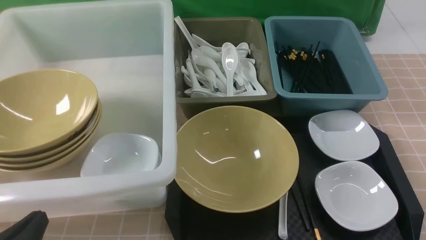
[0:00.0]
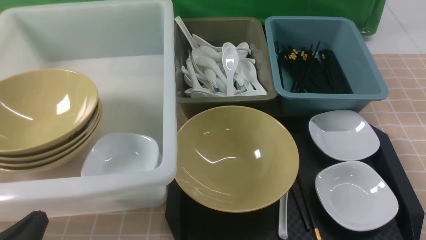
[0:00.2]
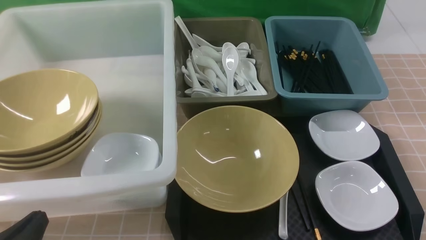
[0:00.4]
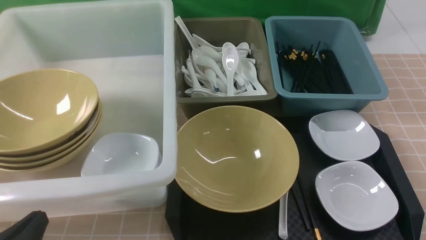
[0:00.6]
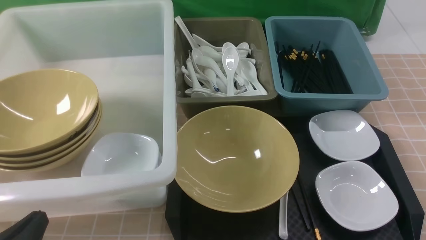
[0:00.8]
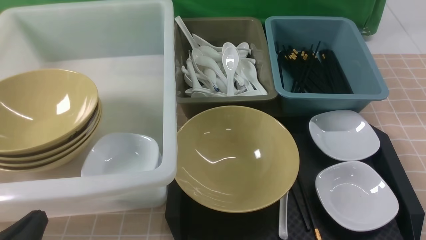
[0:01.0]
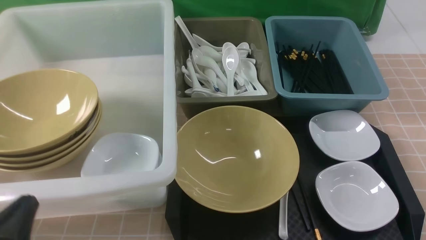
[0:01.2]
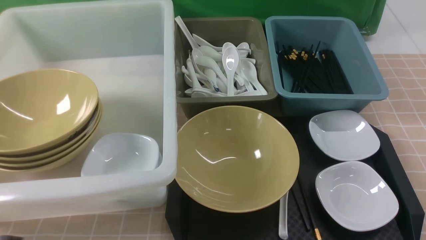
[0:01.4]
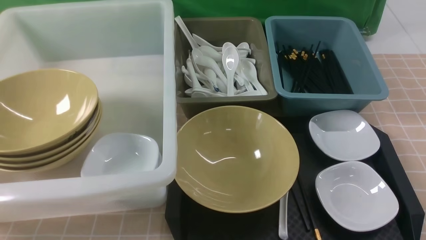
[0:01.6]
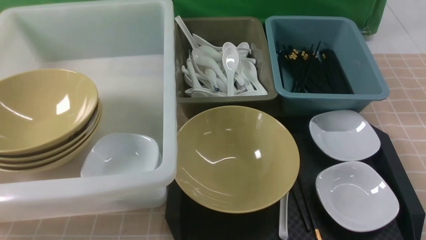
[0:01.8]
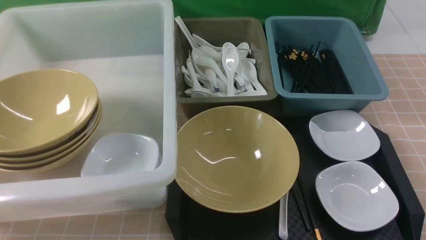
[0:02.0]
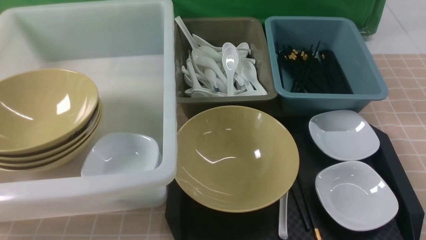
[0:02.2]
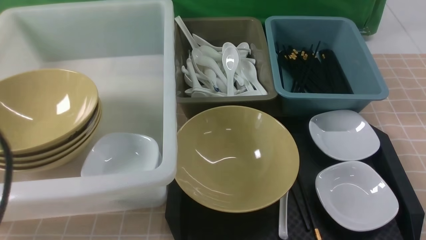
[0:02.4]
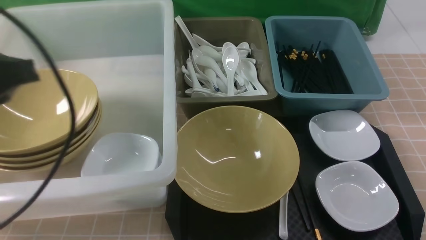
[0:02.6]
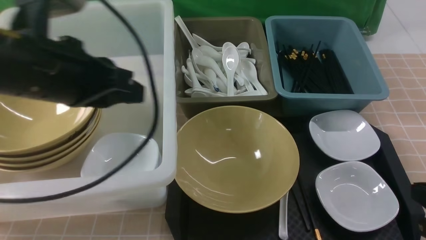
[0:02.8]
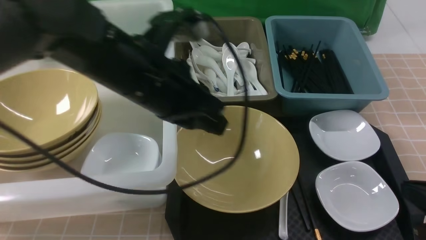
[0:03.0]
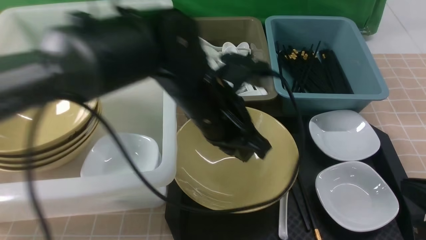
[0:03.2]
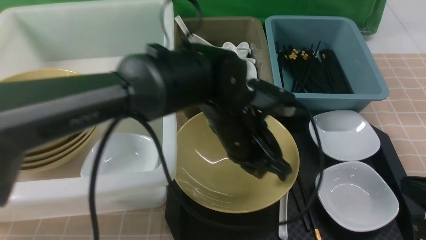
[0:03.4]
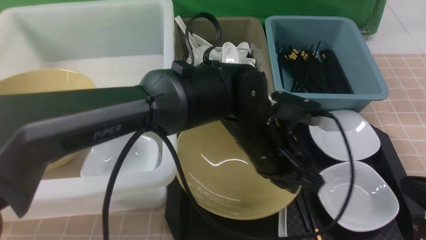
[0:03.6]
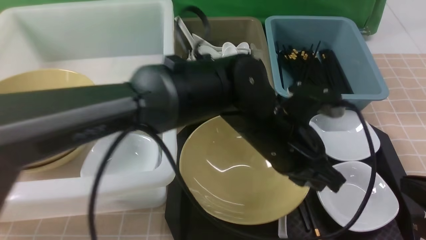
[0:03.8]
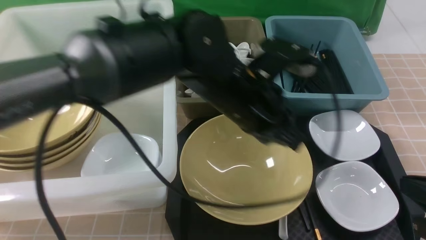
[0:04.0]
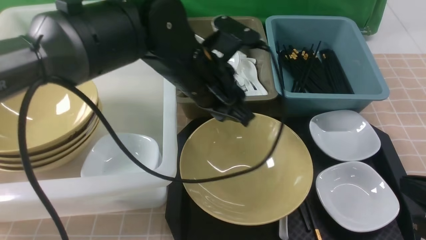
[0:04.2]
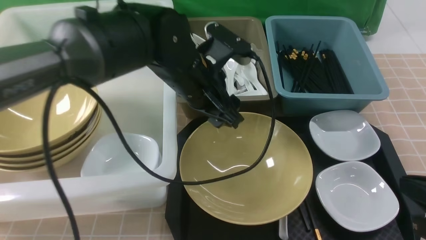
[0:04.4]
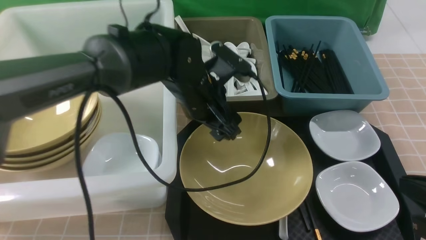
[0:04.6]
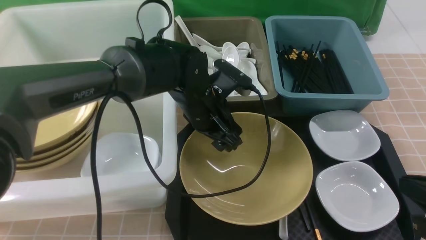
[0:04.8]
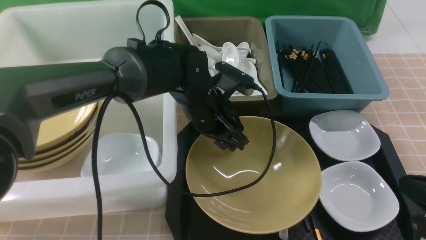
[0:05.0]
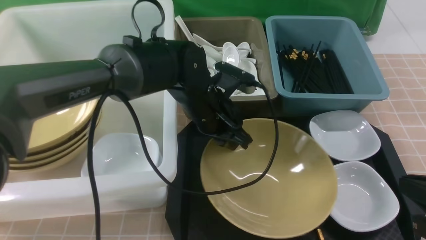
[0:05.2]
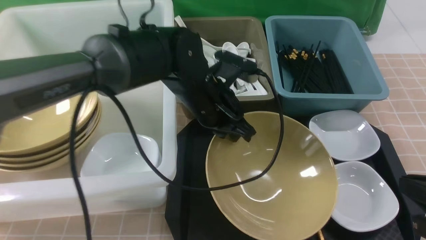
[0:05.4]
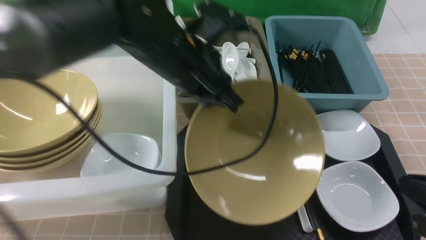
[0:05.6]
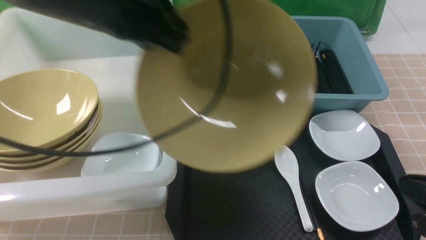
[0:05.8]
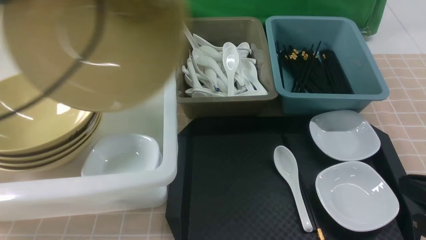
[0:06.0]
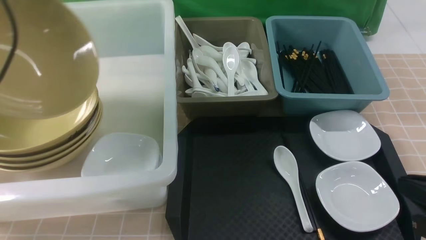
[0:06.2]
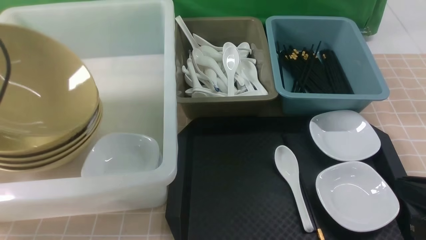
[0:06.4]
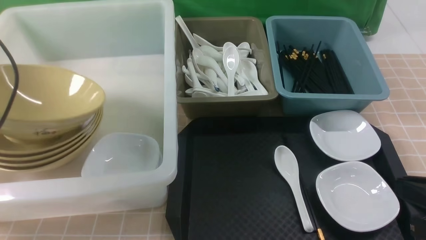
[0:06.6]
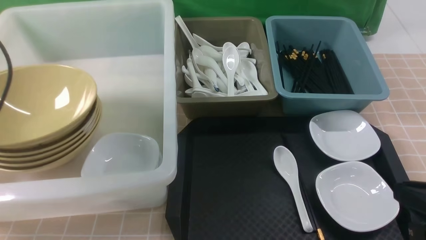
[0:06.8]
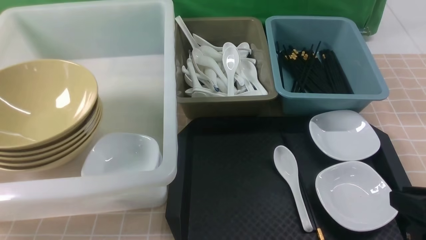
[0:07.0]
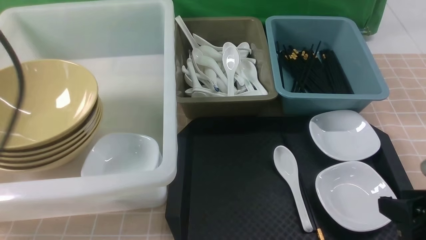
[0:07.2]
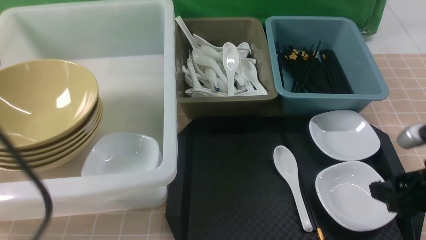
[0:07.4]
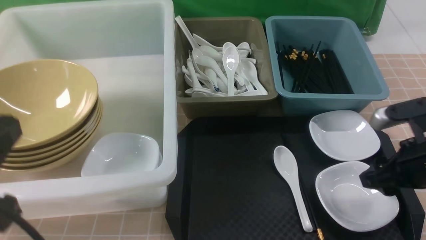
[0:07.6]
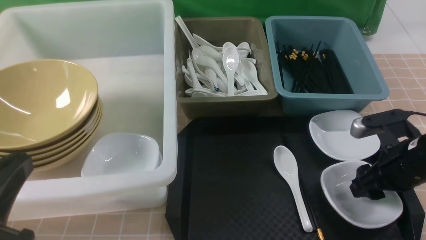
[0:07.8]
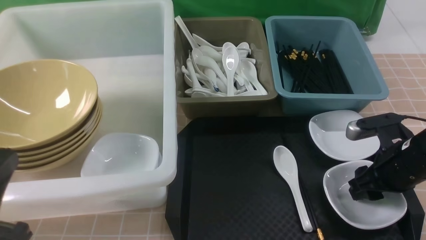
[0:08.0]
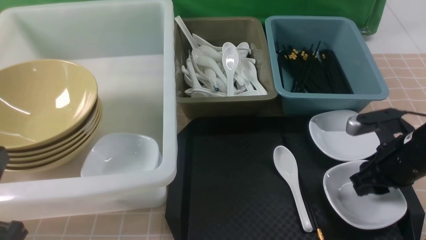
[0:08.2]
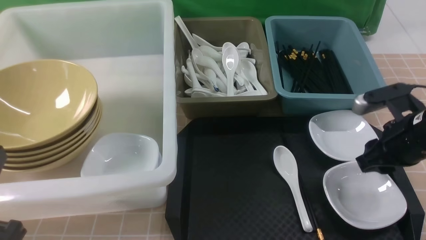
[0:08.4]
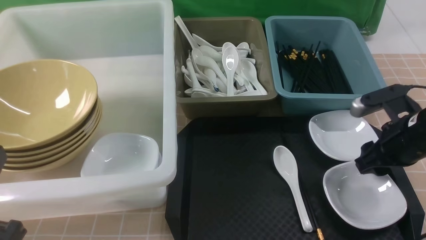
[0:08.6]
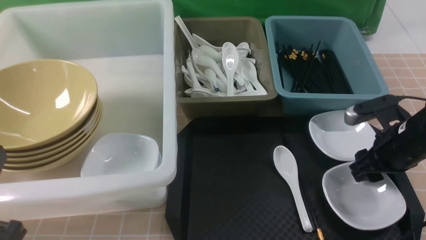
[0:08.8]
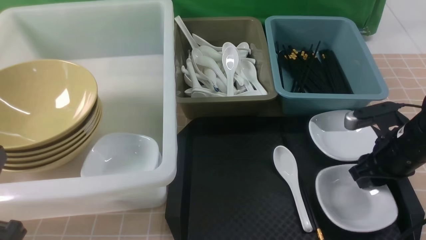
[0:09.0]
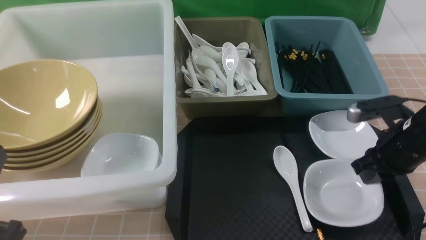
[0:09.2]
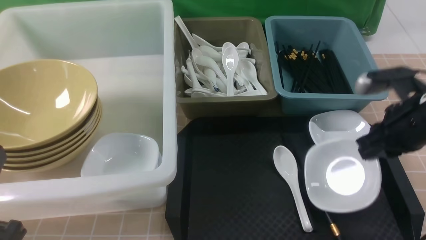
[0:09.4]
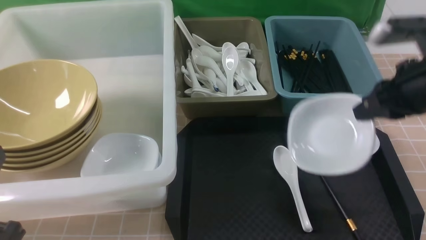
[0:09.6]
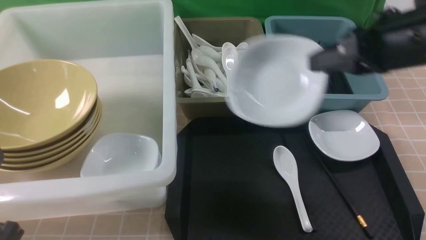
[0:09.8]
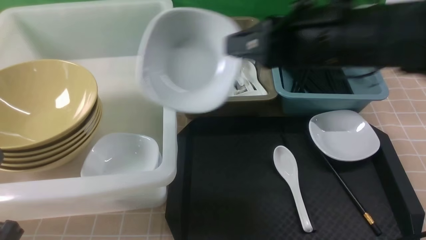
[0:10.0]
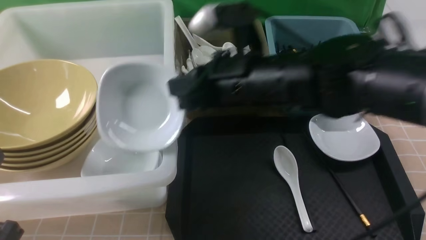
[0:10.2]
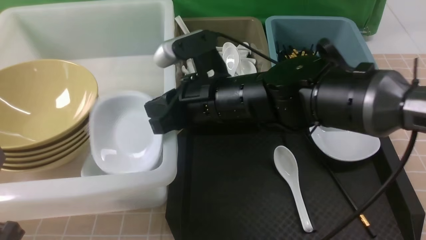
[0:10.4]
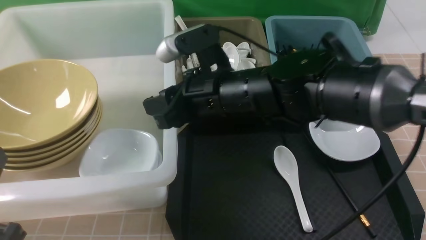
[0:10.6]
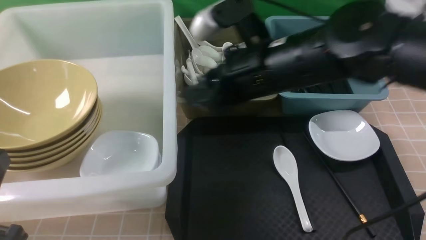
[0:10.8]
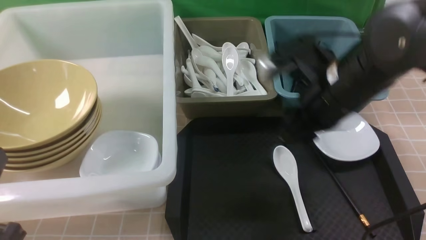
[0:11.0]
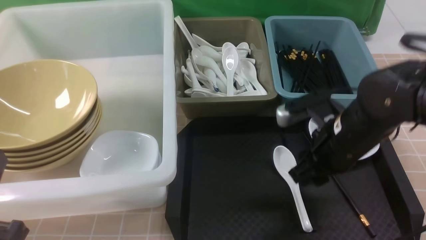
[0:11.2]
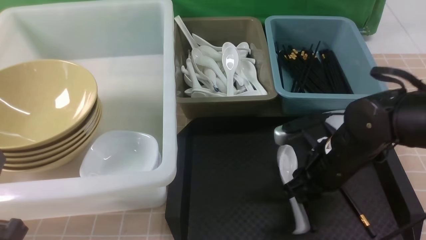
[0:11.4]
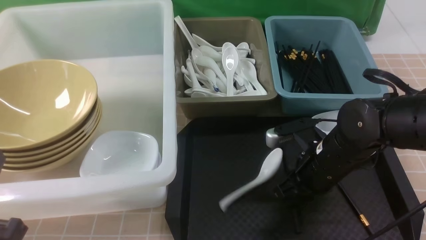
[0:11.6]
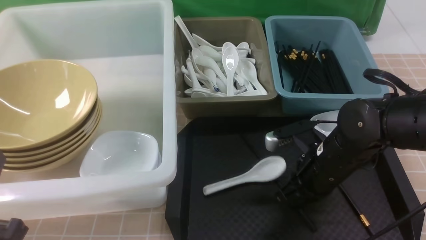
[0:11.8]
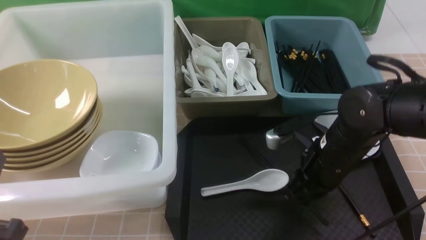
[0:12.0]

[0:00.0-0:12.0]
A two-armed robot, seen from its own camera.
Task of the whole recording: on brown table put chopsticks spoon bowls plates into blue grey white boxes.
Step, 0:00.0 to 0:05.2: use the left arm to grab the yellow noodle bowl on the left.
Step, 0:05.4 to 0:07.0: use the left arm to put the noodle bowl into the large storage box on the left.
Step, 0:07.2 to 0:09.6: use the right arm to grab the plate.
Step, 0:09.8 to 0:11.0: use the right arm to put the plate into the large storage box on the left.
0:00.0 to 0:01.6: The left gripper travels upward by roughly 10 cm.
0:01.6 to 0:03.0: The left gripper travels forward and to the right by about 30 cm, while the right gripper shifts some 10 cm forward, and moves approximately 10 cm upward and comes back.
0:03.0 to 0:04.4: The left gripper heads forward and downward, covering roughly 10 cm, and opens.
0:04.4 to 0:06.0: The left gripper shifts some 25 cm to the left and upward, and closes its fingers.
0:06.0 to 0:07.6: The right gripper is displaced forward by roughly 10 cm, and opens, while the left gripper is displaced backward and downward by approximately 20 cm, and opens, then closes again.
0:07.6 to 0:09.0: The left gripper is displaced downward by roughly 5 cm. The right gripper is displaced forward by some 5 cm, and closes up.
0:09.0 to 0:10.4: The right gripper is displaced to the left by about 25 cm.
0:10.4 to 0:12.0: The right gripper heads to the right and downward, covering about 15 cm, and opens and closes again.

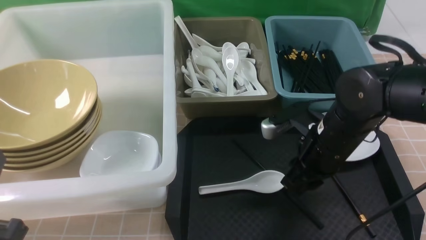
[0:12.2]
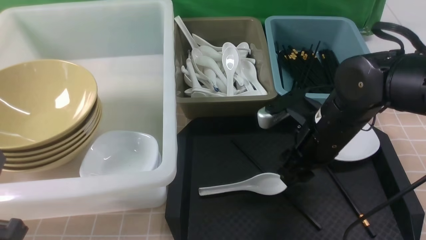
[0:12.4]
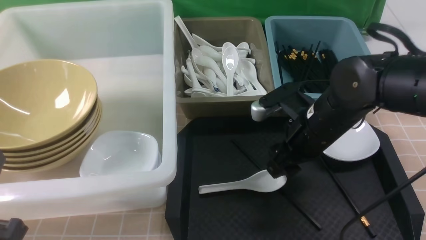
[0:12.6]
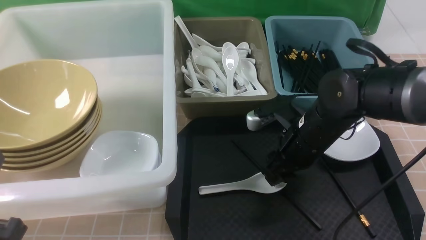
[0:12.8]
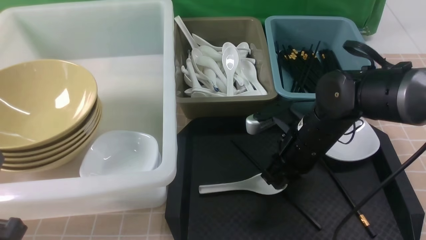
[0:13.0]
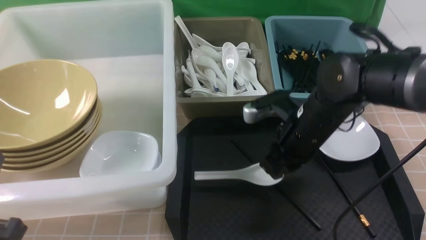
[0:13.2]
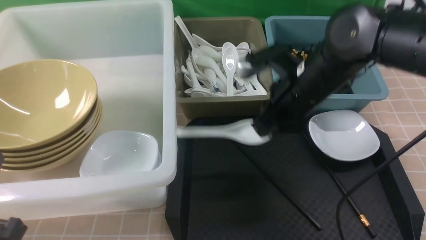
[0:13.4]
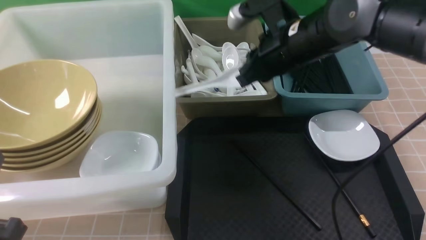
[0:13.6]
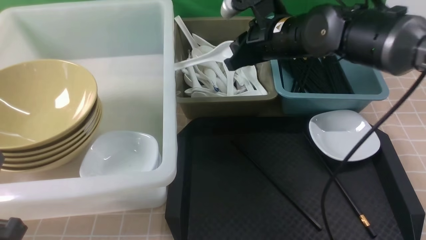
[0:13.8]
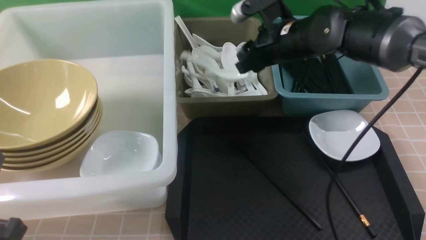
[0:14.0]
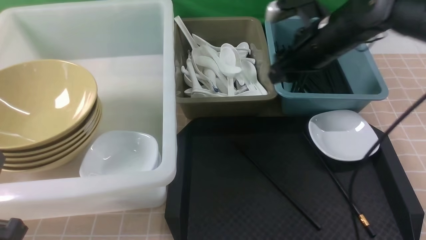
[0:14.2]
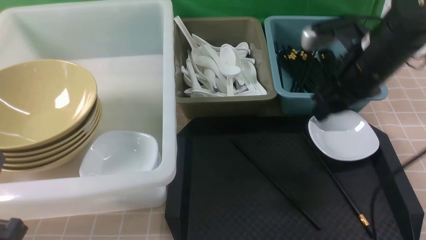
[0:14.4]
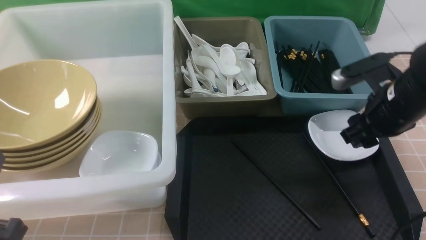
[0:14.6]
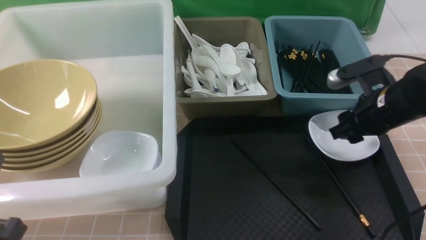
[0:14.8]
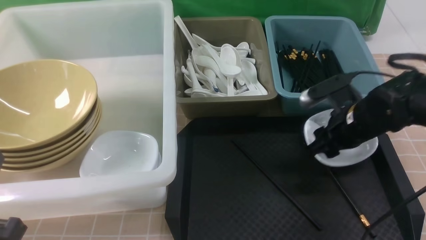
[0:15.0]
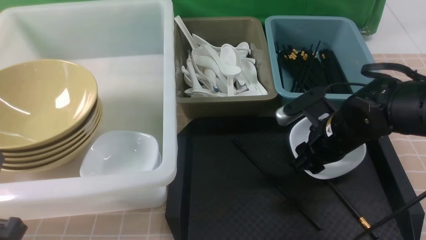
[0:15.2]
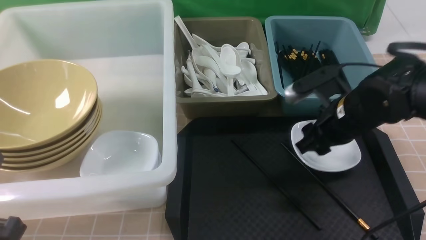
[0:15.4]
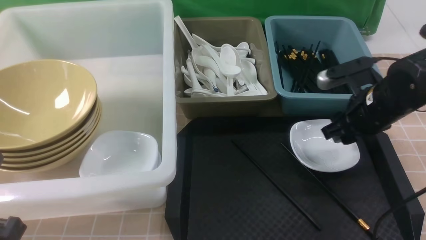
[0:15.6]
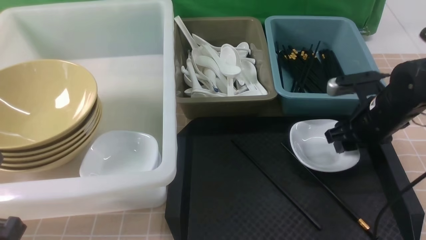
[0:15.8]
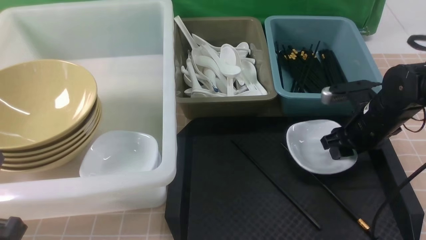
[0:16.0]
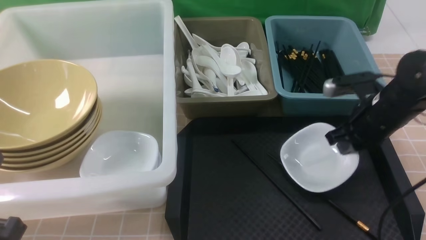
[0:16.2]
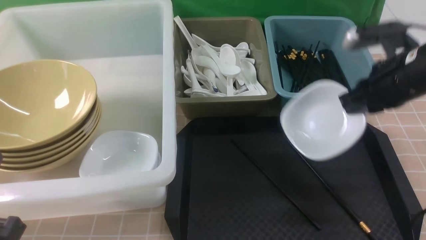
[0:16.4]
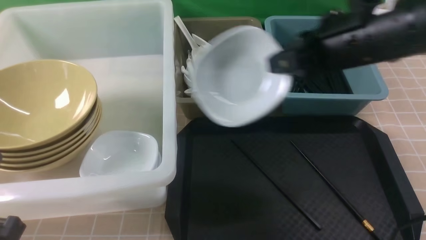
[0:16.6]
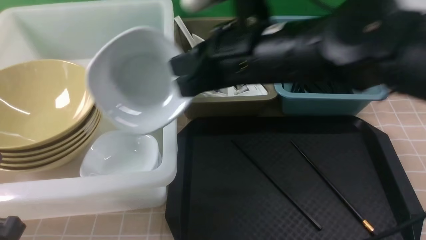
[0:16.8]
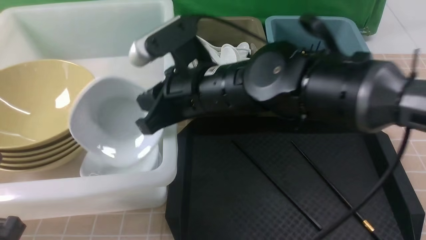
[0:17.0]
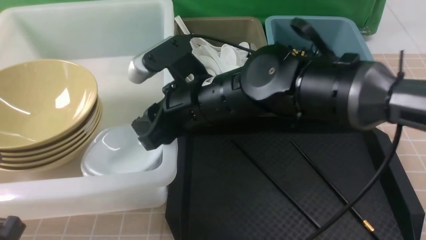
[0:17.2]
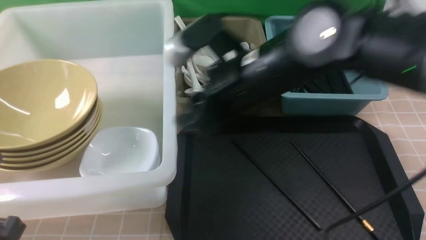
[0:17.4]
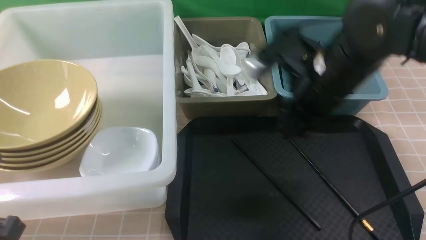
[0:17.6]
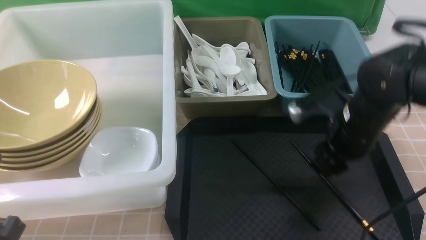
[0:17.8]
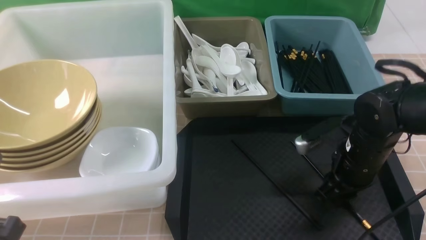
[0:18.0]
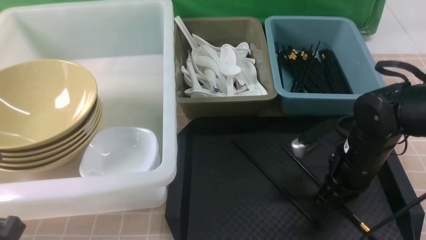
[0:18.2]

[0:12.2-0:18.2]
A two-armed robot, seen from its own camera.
Task of the whole recording: on brown table put chopsticks spoon bowls plates into blue grey white boxes.
Step, 0:12.2 to 0:13.4: use the right arm to grab the soup spoon in the middle.
Step, 0:13.6 to 0:14.4: use the right arm to put the soup spoon into the small storage box in the middle.
Step, 0:14.6 to 0:16.4: use the right arm to grab the plate.
Step, 0:16.6 to 0:17.4: use the right arm to put the plate into the large storage box on the left.
0:12.2 to 0:13.8: The right gripper shifts approximately 15 cm forward and upward, and opens and closes again.
0:13.8 to 0:15.2: The right gripper travels backward, downward and to the right by some 15 cm, and opens up.
0:15.2 to 0:16.6: The right gripper moves upward and to the left, approximately 15 cm, and closes.
0:16.6 to 0:18.2: The right gripper moves downward and to the right, some 15 cm, and opens and closes again.
